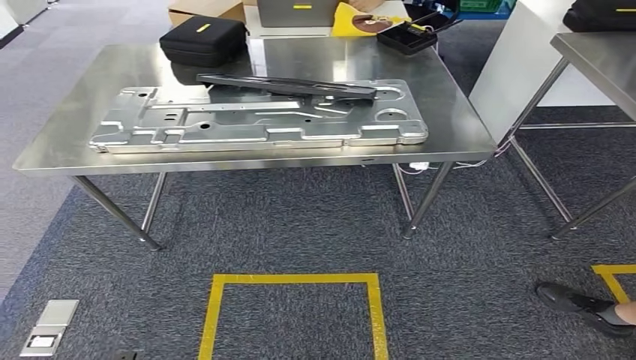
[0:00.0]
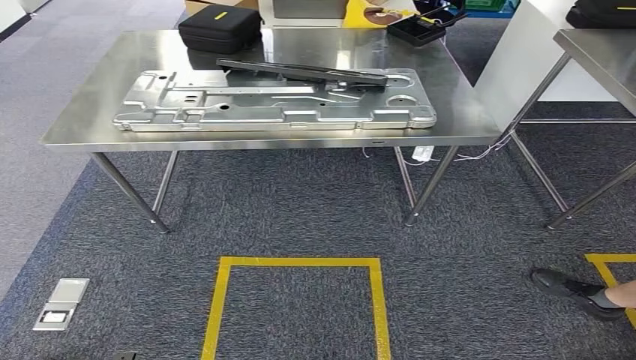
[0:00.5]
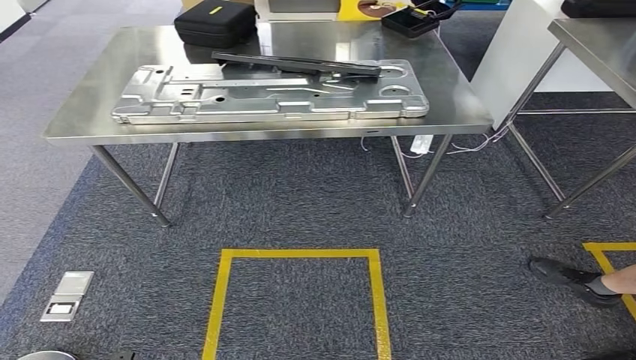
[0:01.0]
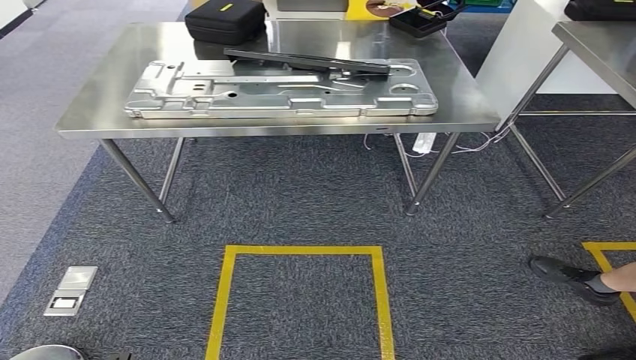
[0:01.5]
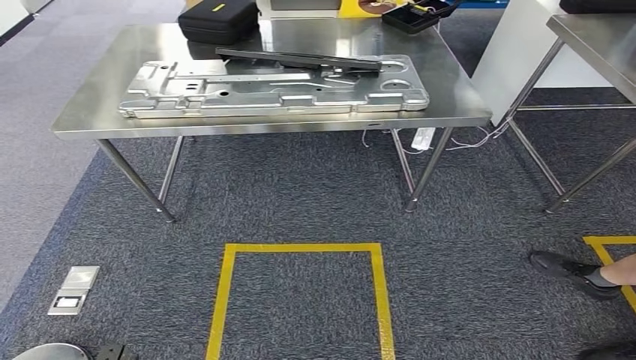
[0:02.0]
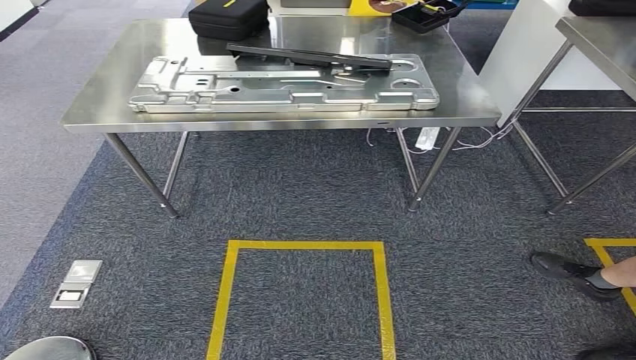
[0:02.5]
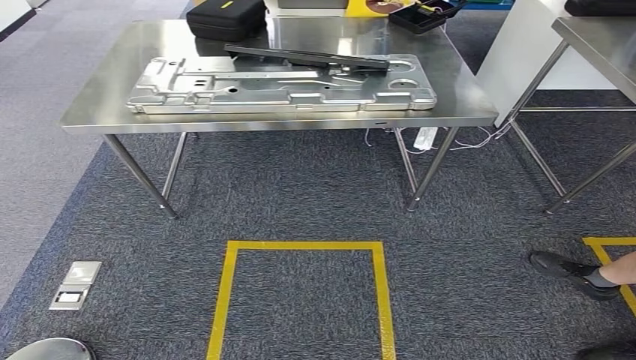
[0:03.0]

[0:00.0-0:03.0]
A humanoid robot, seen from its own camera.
Step, 0:00.0 to 0:03.0: Move to the initial position of the shelf.
0:01.5 to 0:03.0: The hands make only small movements.
